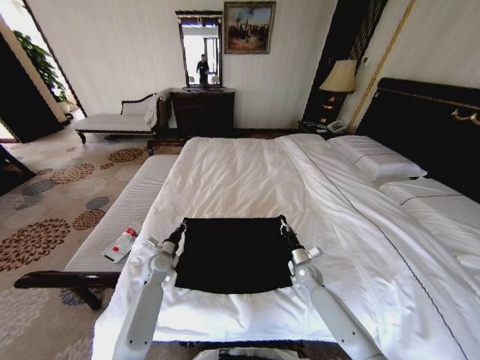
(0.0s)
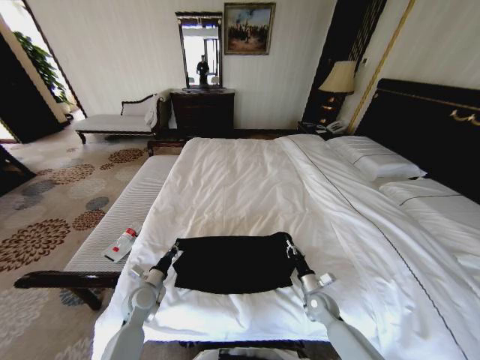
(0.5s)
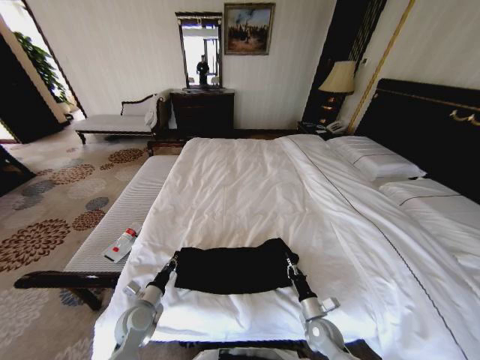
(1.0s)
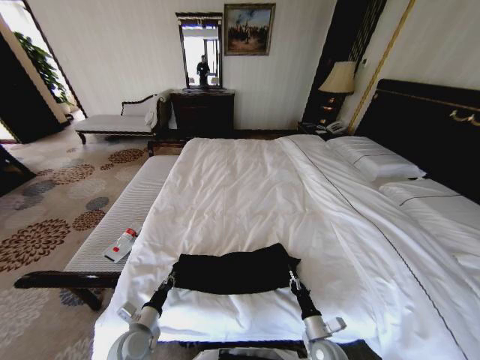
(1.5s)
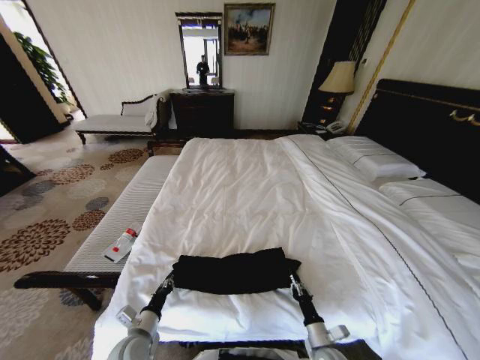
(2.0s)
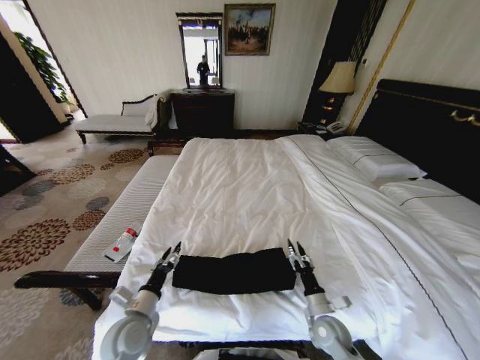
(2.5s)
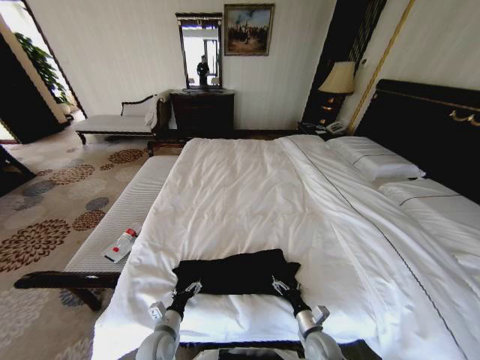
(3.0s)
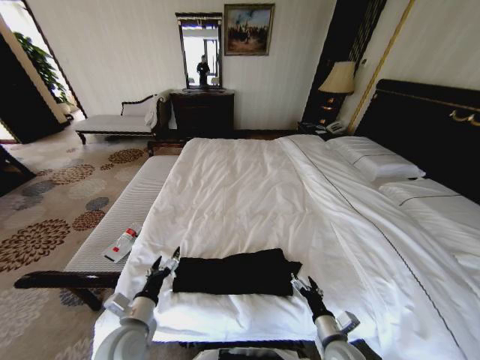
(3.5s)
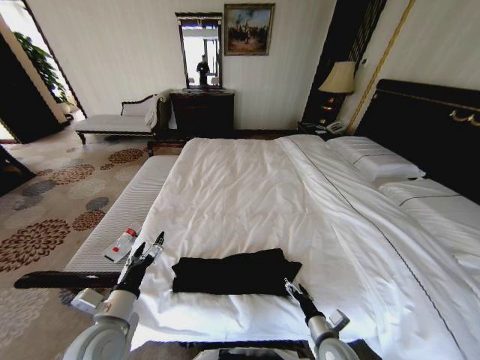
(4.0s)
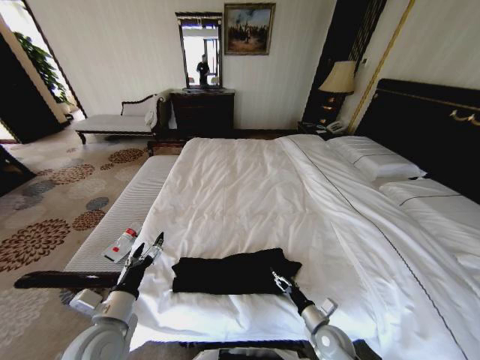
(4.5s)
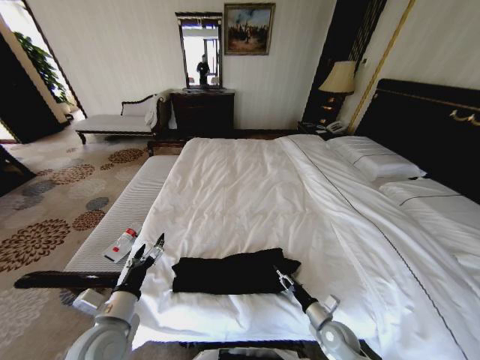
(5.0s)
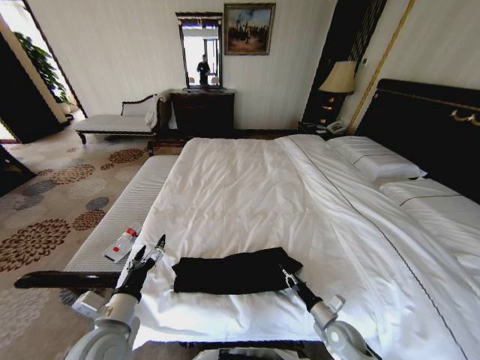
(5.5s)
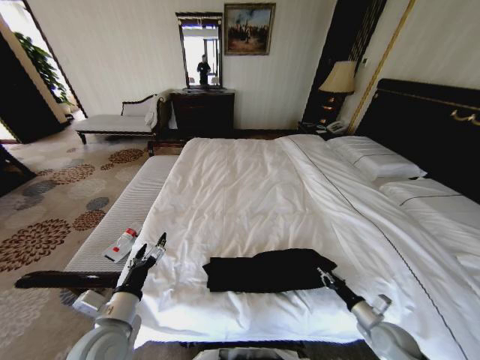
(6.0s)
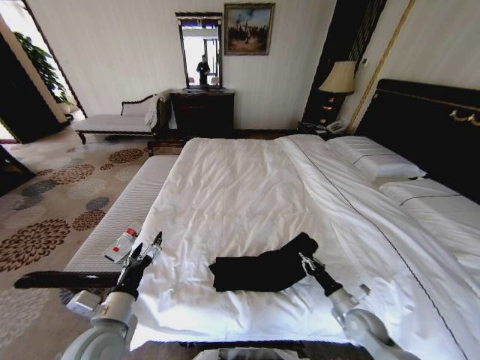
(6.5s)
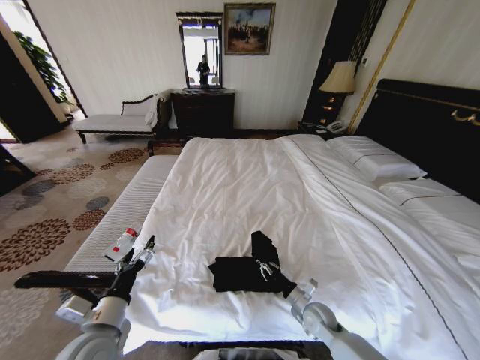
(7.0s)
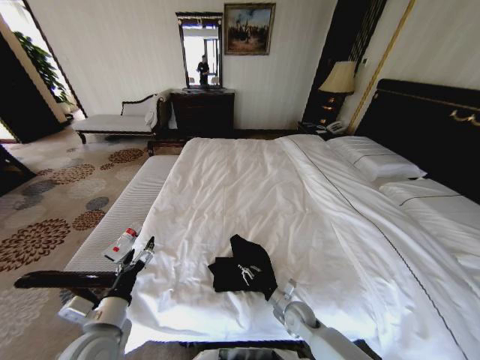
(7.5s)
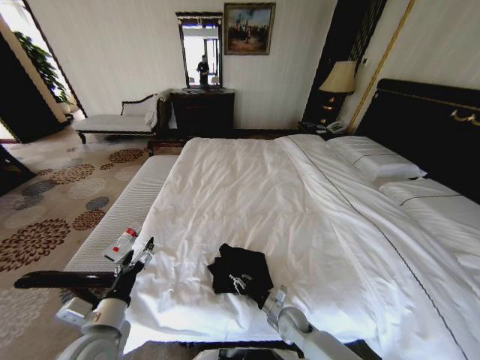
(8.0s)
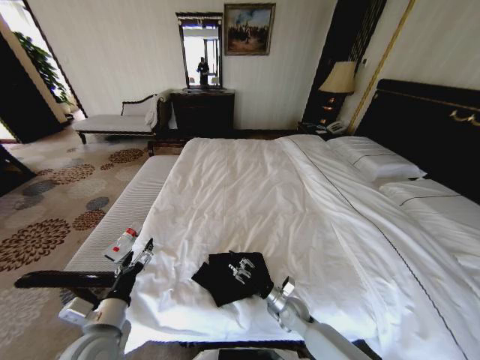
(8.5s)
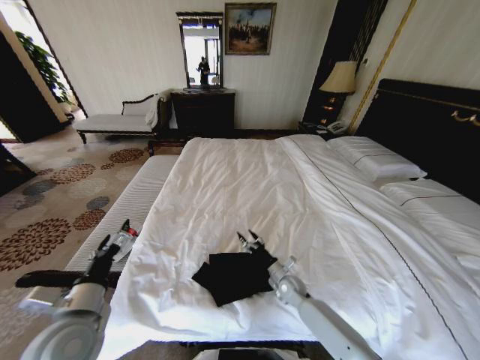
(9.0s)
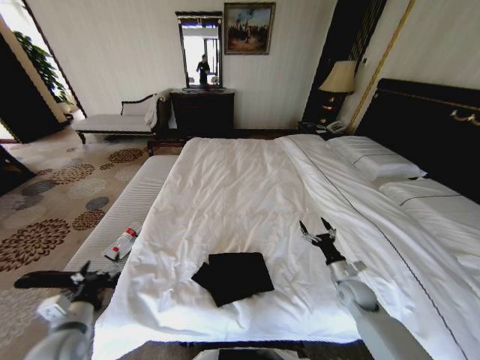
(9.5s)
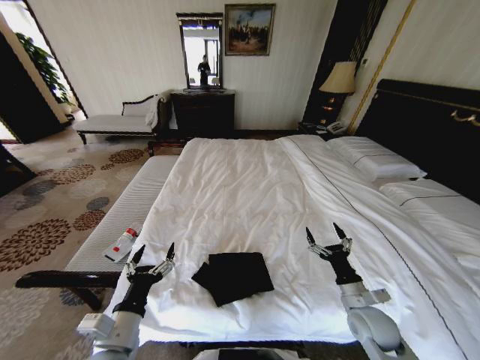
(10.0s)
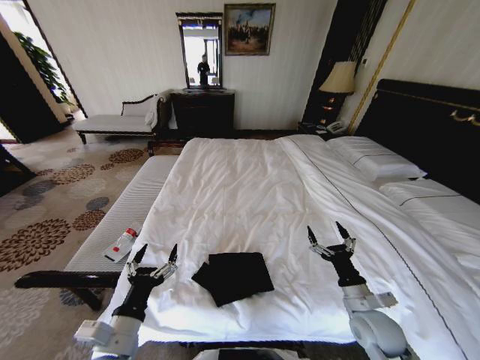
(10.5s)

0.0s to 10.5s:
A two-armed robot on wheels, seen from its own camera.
Task of the whole recording: Fold the clothes on the bed.
0.0s to 2.0s: The two grippers go some 25 cm backward.
2.0s to 4.0s: The left gripper moves up and down over roughly 20 cm, changing direction 2 times, and opens its fingers. The right gripper goes up and down, approximately 10 cm each way, reversing 2 times, and opens.
4.0s to 6.5s: The right gripper goes about 10 cm to the right and forward, and closes.
6.5s to 8.5s: The right gripper is displaced to the left by some 20 cm, and opens.
8.5s to 10.5s: The right gripper goes approximately 20 cm to the right, upward and backward, and opens its fingers; the left gripper goes to the left and returns, about 10 cm each way.
